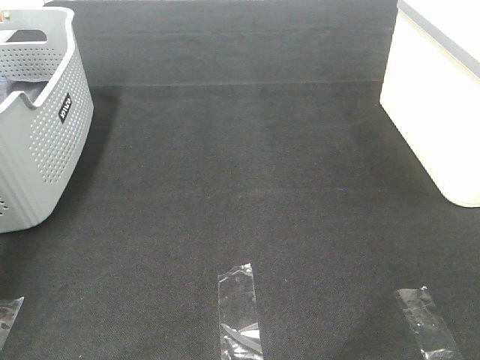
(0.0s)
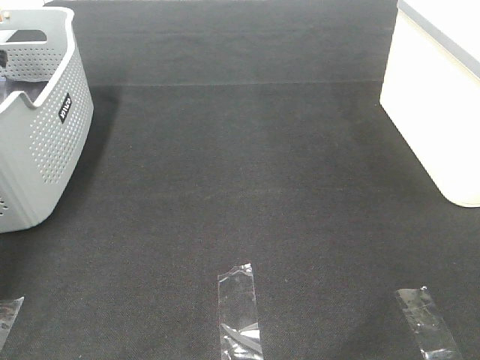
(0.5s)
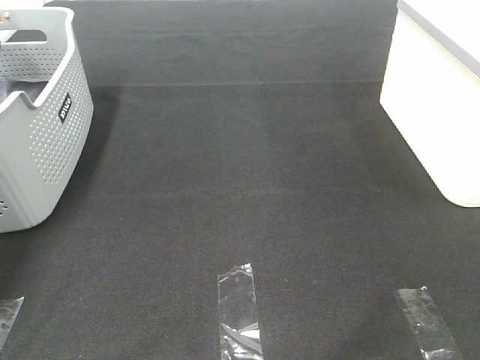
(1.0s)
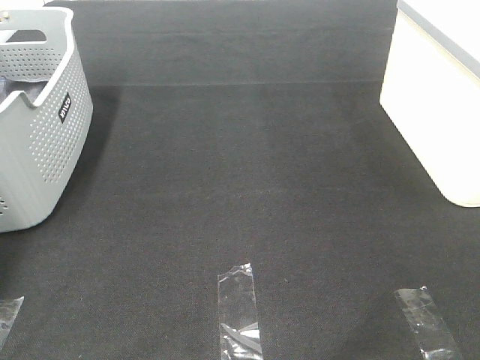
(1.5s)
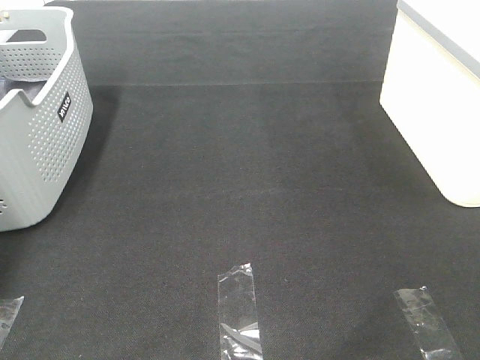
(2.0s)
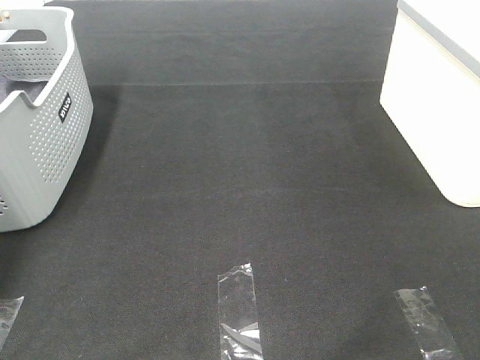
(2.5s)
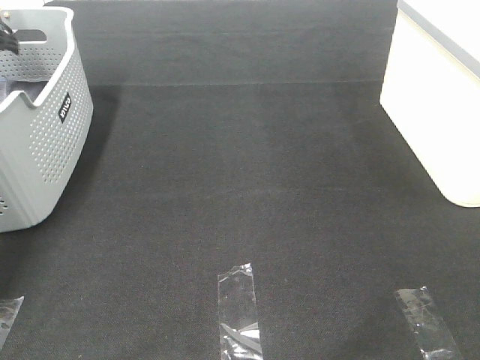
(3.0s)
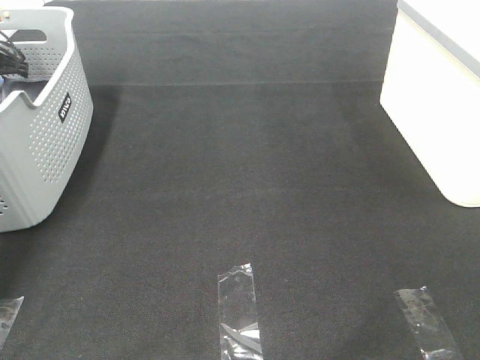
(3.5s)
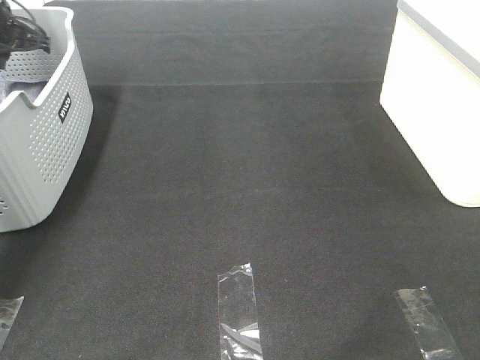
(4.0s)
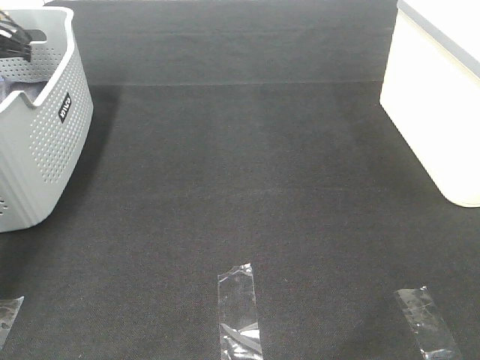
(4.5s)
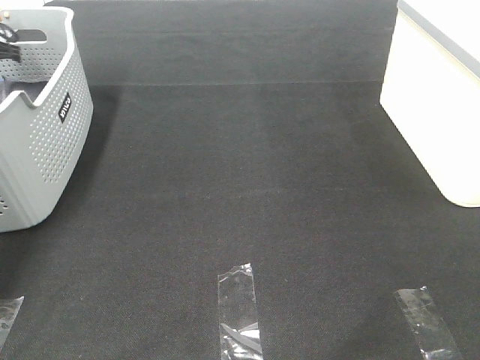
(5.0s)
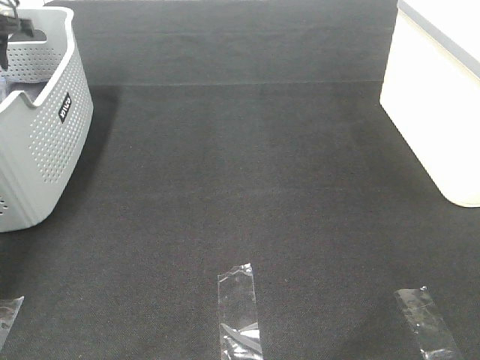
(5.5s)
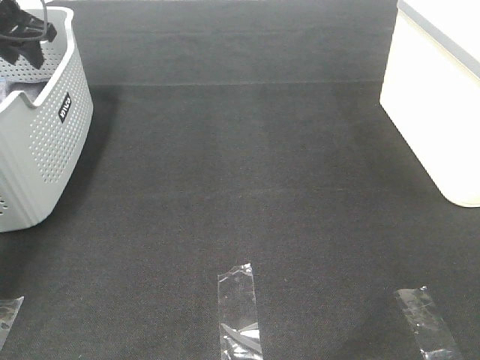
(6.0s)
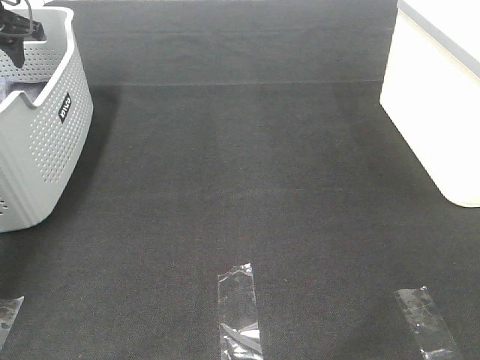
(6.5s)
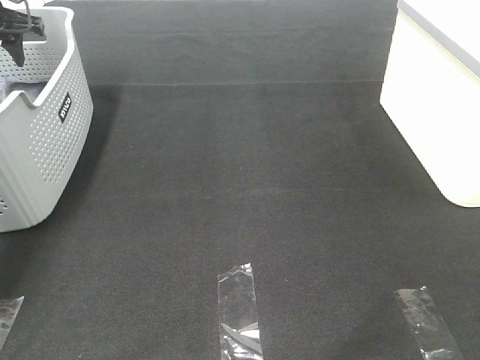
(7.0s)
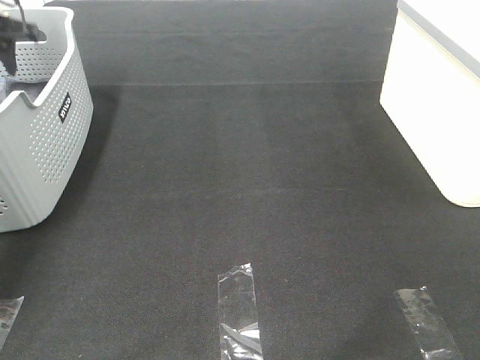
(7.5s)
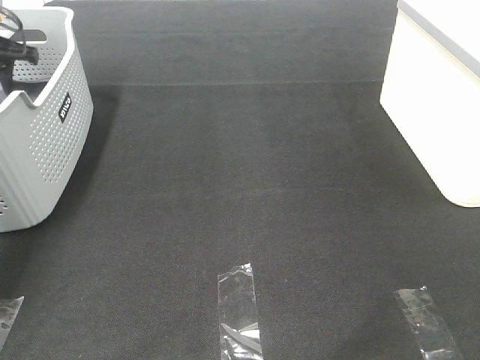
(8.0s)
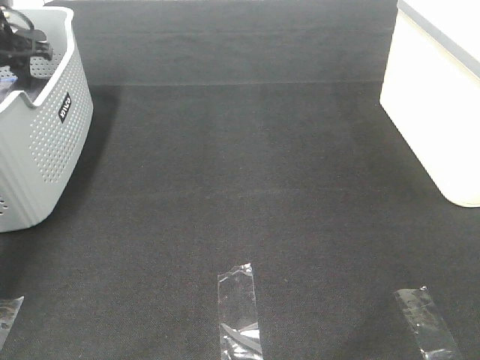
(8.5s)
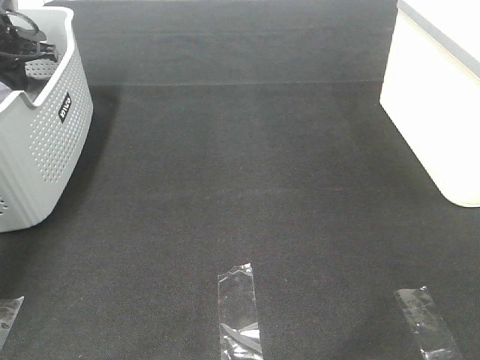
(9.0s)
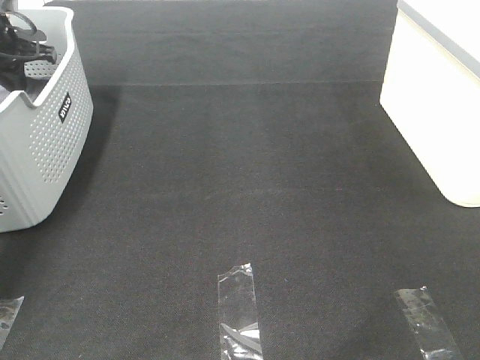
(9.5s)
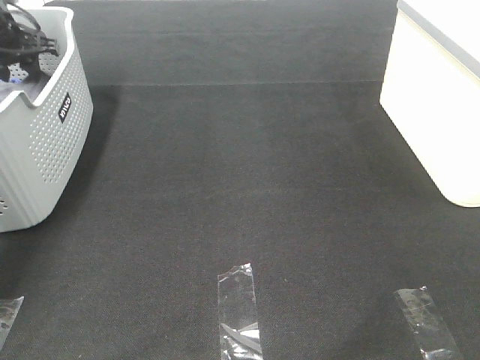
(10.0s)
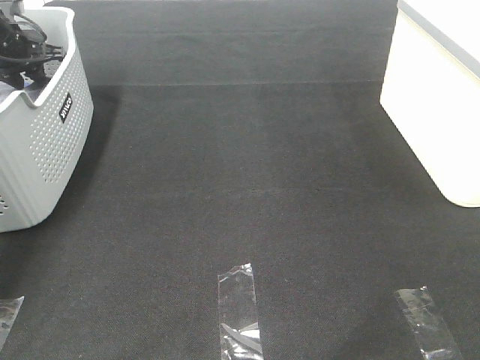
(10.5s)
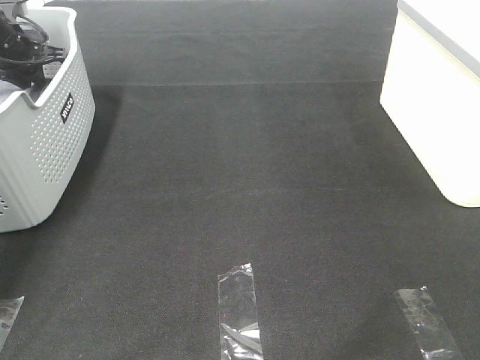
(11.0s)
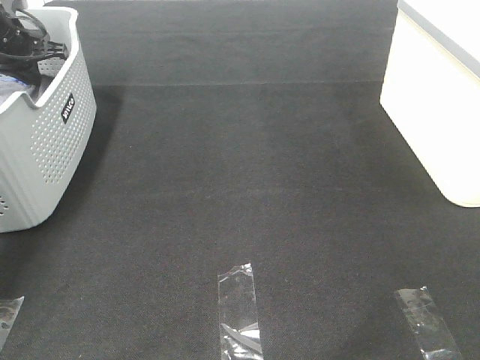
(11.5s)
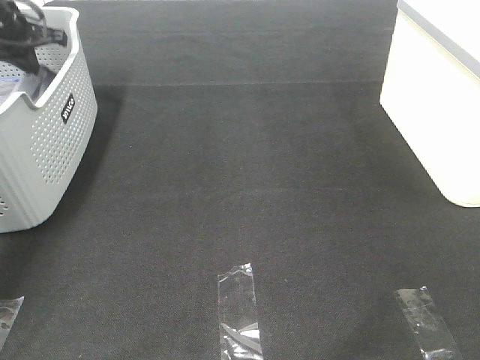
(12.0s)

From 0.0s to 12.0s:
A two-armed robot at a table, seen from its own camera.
Task of the whole recording: Remove the towel and place it.
From 0.0s to 2.0s: The left gripper goes about 5 cm downward.
From 2.0s to 4.0s: The left gripper is displaced to the right by about 10 cm, and closes up.
From 4.0s to 6.0s: The left gripper opens its fingers.
From 8.0s to 10.0s: The left gripper closes and opens again.
From 10.0s to 12.0s: The left gripper closes its fingers.

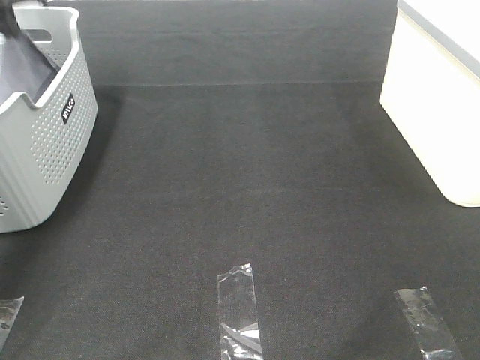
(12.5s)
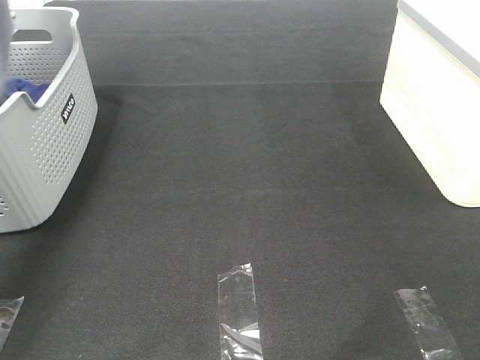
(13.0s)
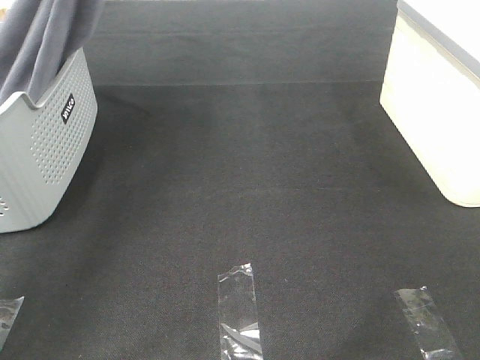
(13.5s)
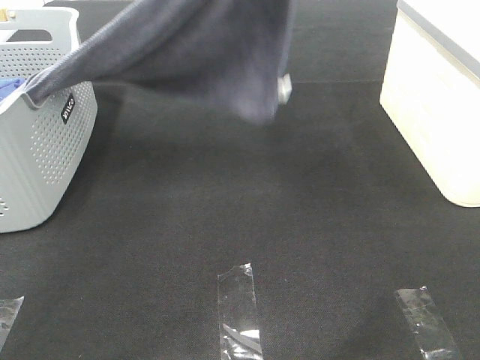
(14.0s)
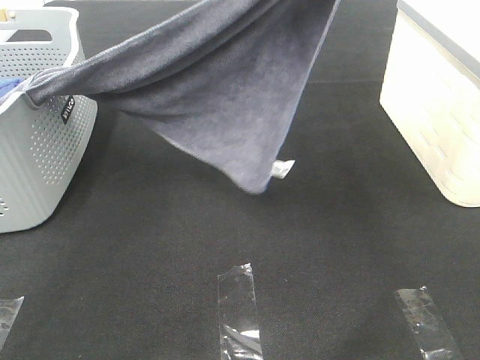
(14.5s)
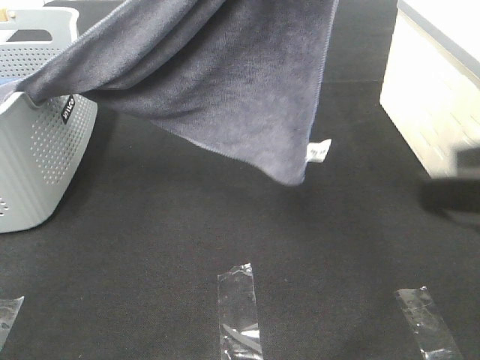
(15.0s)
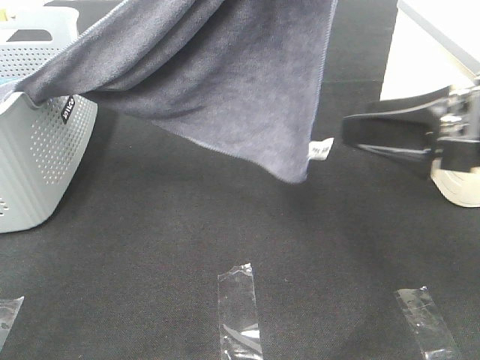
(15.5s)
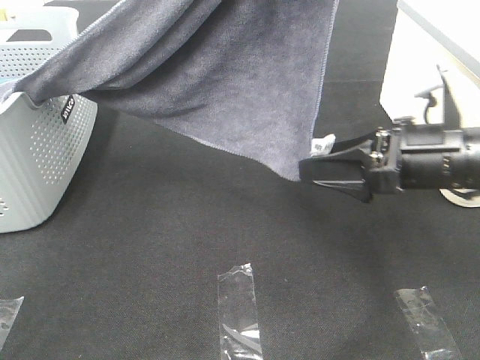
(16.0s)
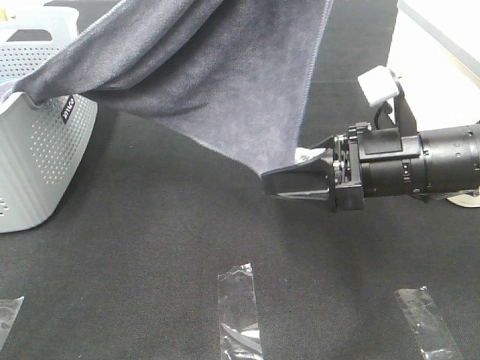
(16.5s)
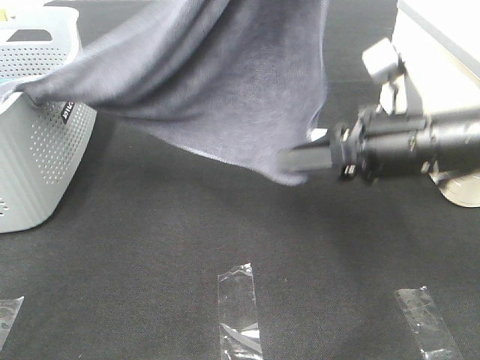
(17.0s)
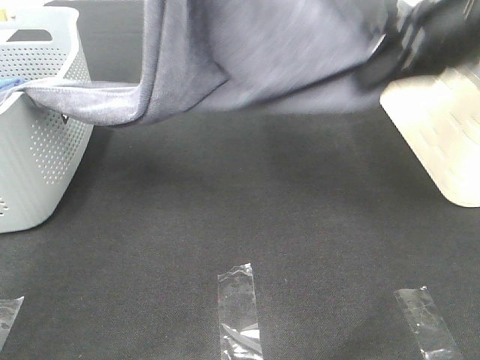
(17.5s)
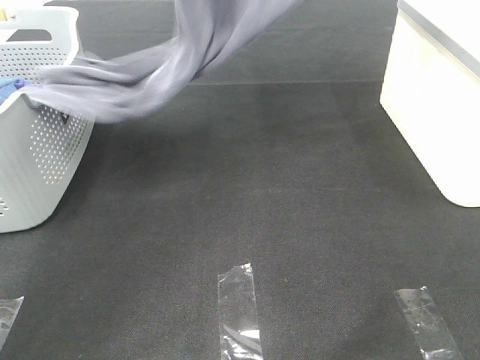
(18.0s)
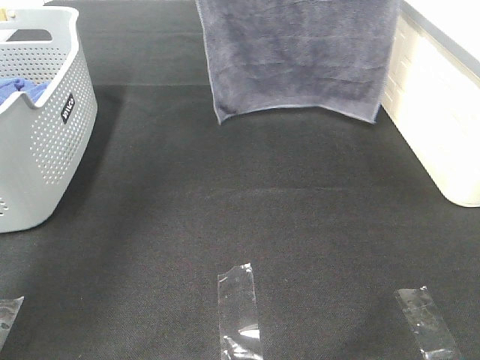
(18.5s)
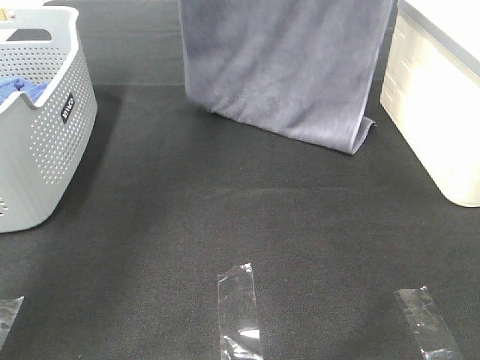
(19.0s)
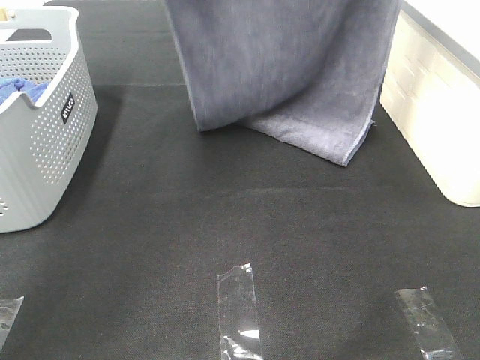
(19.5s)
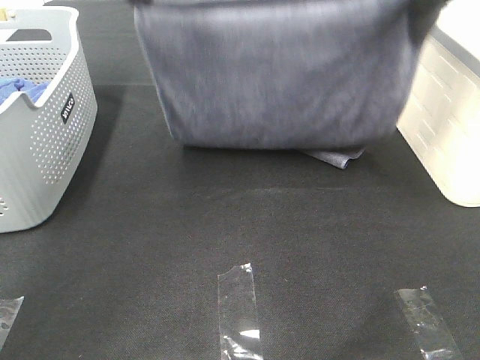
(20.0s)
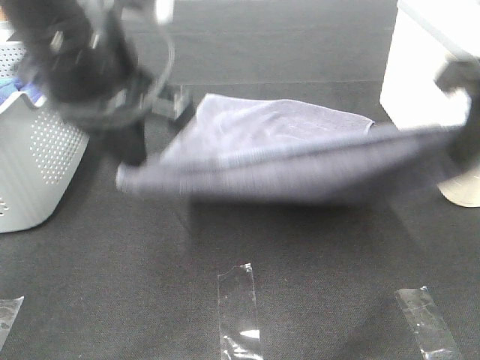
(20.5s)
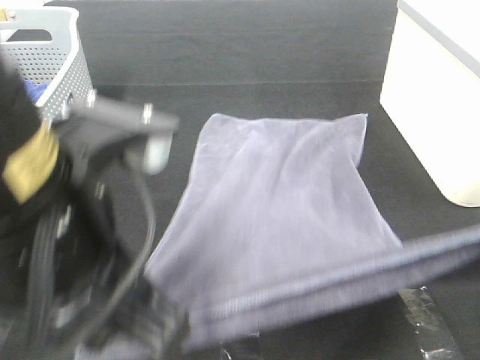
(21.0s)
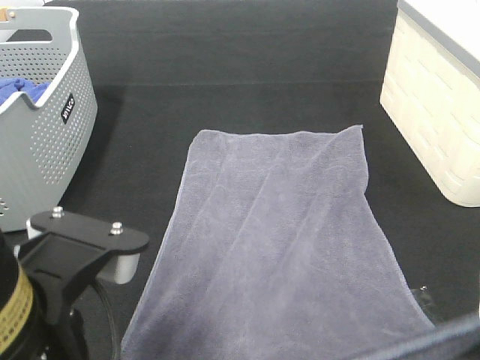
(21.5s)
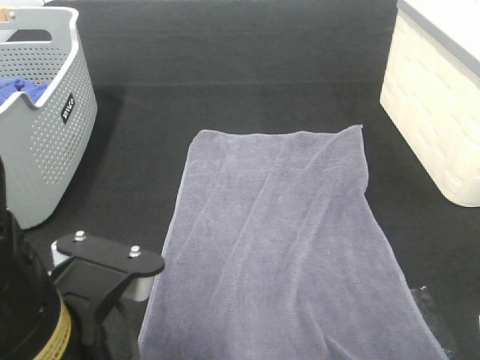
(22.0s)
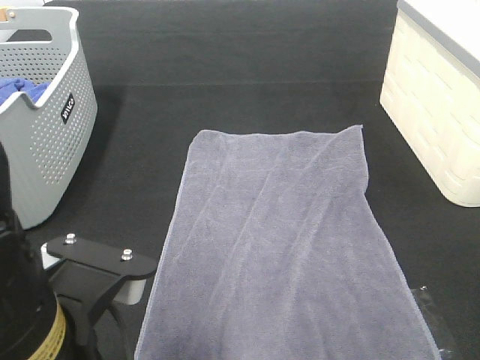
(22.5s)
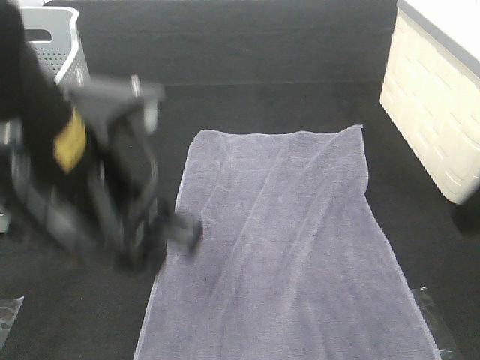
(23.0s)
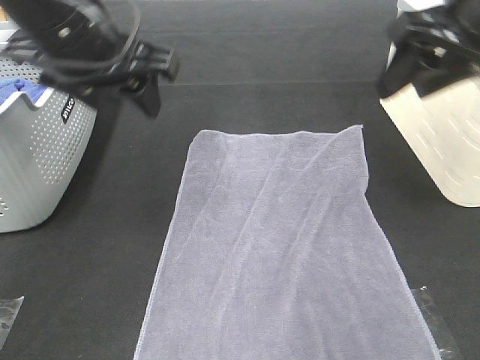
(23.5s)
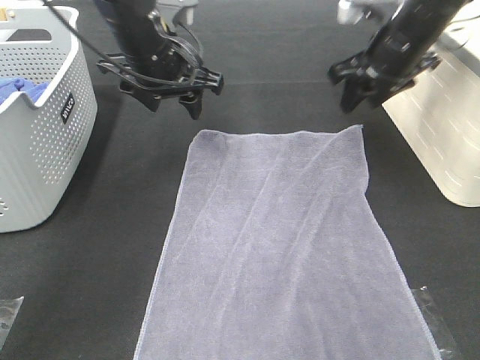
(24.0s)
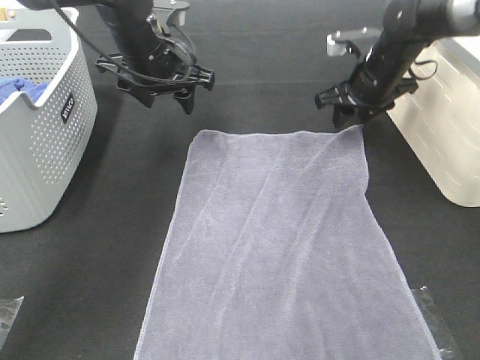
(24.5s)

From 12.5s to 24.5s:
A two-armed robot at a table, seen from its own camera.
Task of the whole recording: Remove the towel and place it.
Step, from 14.0s to 16.5s: Left hand: spread the grey towel flat on the table.
Step, from 14.0s to 16.5s: Right hand: spread the grey towel flat on the table.
Step, from 17.0s to 22.5s: Left hand:adjust the gray towel.
Step, from 17.0s to 22.5s: Right hand:adjust the gray towel.
From 12.5s to 14.5s: The left gripper shifts approximately 40 cm to the right, backward and upward.
From 14.5s to 16.5s: The left gripper ends up some 5 cm from where it was, while the right gripper moves forward and downward, about 30 cm.
From 16.5s to 18.5s: The right gripper goes about 40 cm upward and forward, and closes its fingers; the left gripper heads forward and to the left, covering roughly 25 cm.
From 18.5s to 20.5s: The right gripper is displaced downward and backward by some 30 cm; the left gripper goes some 30 cm backward and downward.
From 20.5s to 22.5s: Both grippers travel together backward and downward, approximately 15 cm. The right gripper opens up. Meanwhile the left gripper opens.
From 22.5s to 24.5s: Both grippers move forward, approximately 40 cm.

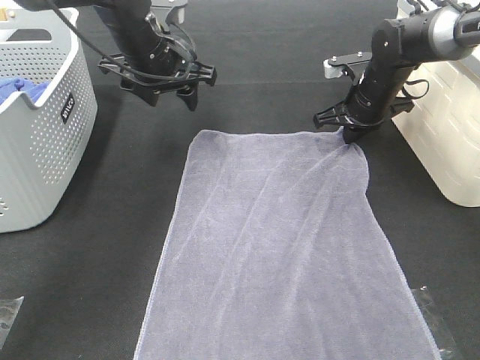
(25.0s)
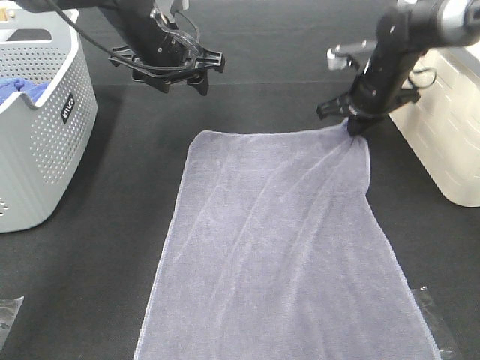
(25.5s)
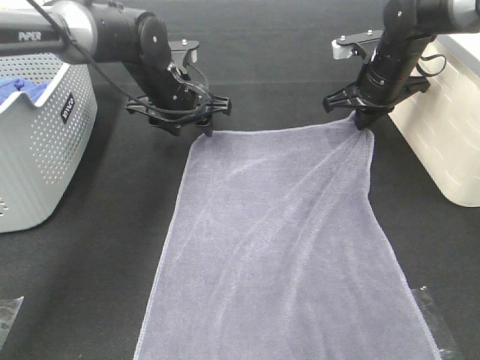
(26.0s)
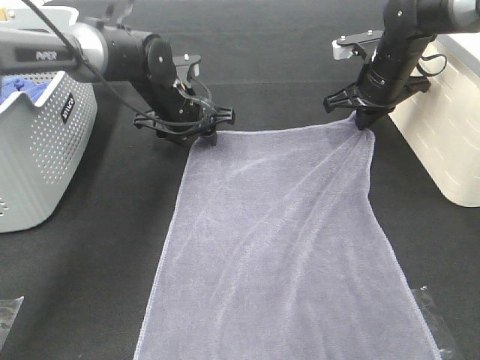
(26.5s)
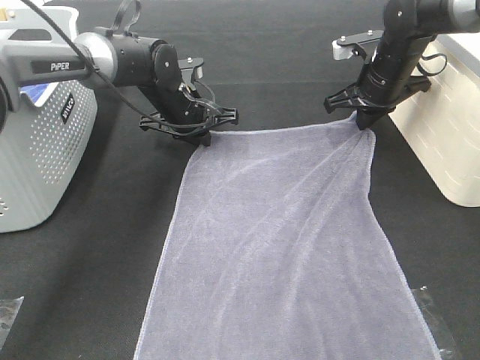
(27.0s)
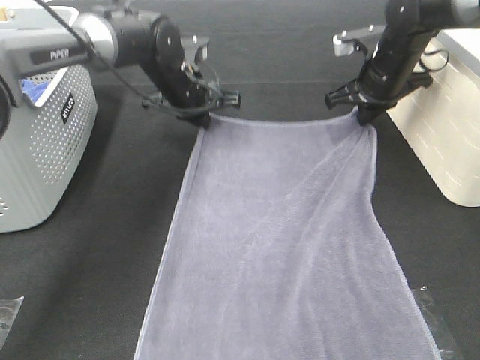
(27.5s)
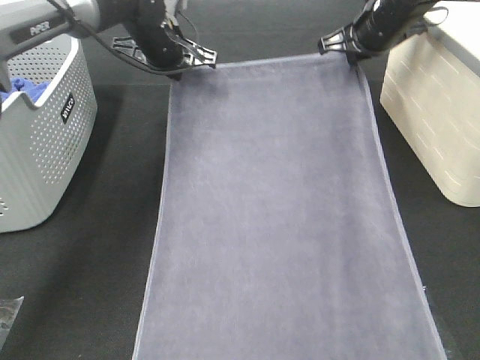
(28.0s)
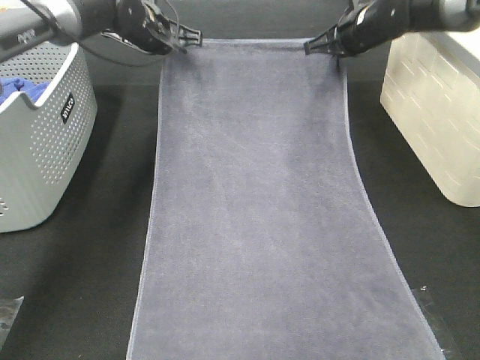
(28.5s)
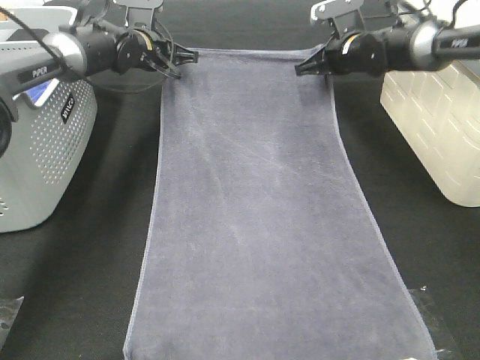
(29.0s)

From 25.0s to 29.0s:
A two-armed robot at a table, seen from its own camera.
Task of the whole recording: Remove the towel and place it.
From 25.0s to 27.0s: The left gripper moves downward, roughly 10 cm, and closes.
From 27.0s to 29.0s: The right gripper travels forward by some 10 cm, and travels upward and back again, about 5 cm each way. The left gripper shifts roughly 10 cm forward and to the left.
